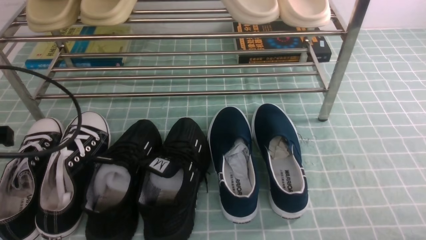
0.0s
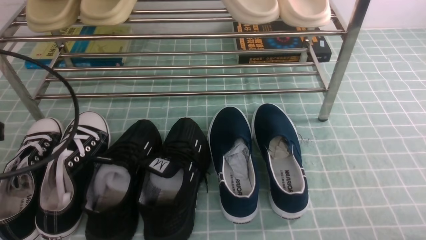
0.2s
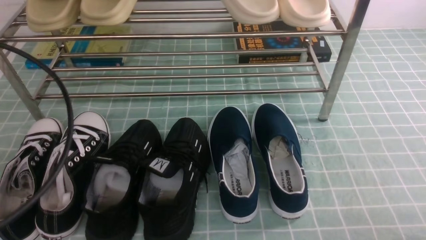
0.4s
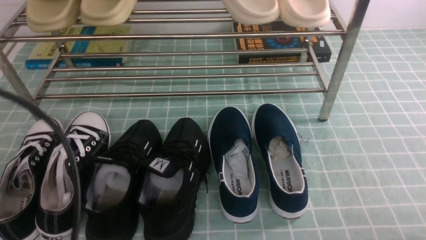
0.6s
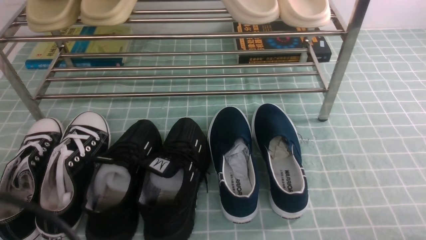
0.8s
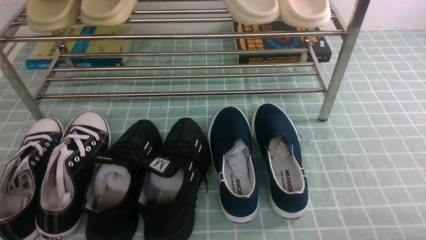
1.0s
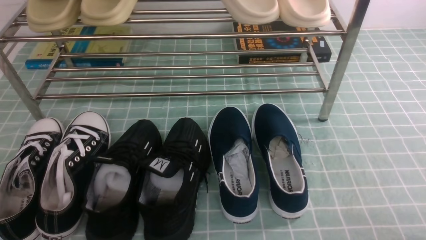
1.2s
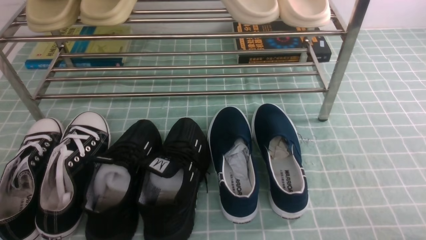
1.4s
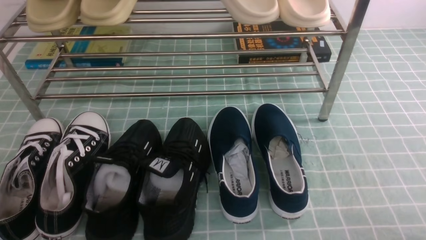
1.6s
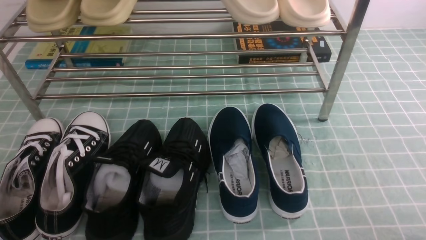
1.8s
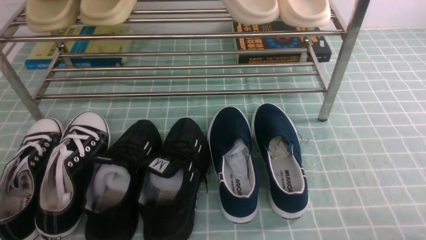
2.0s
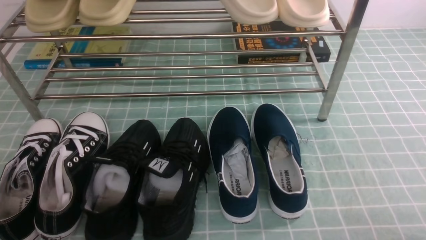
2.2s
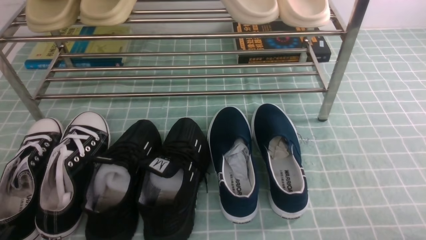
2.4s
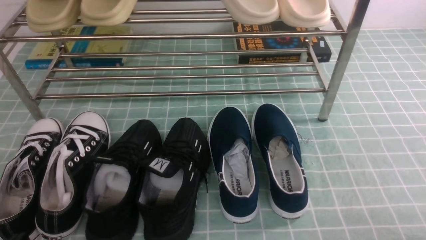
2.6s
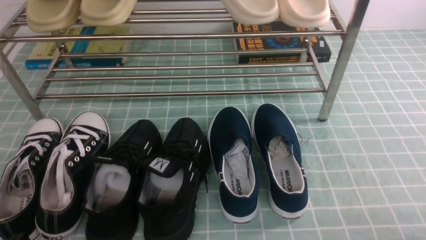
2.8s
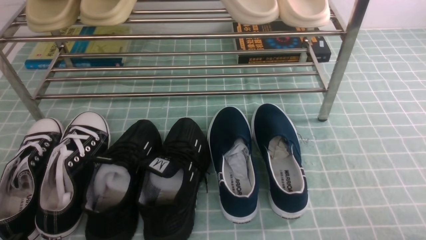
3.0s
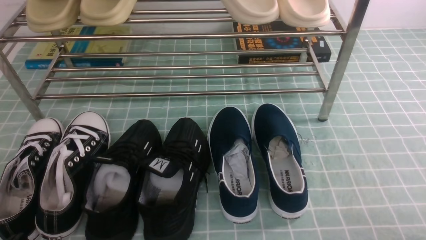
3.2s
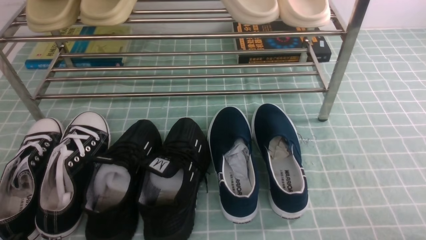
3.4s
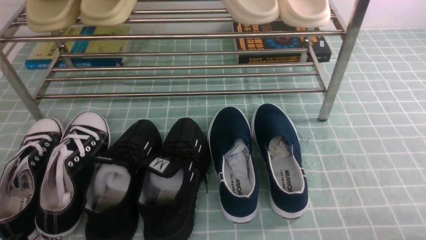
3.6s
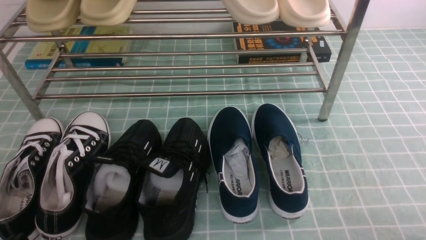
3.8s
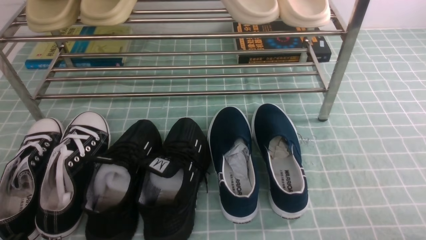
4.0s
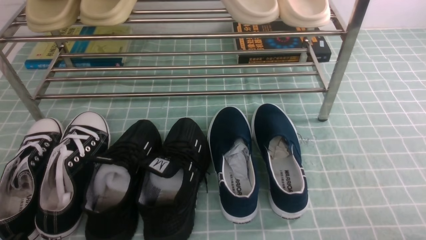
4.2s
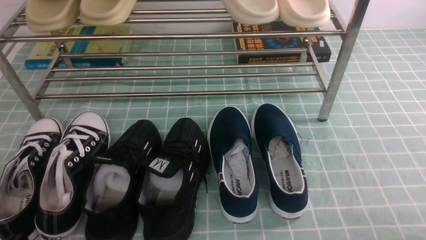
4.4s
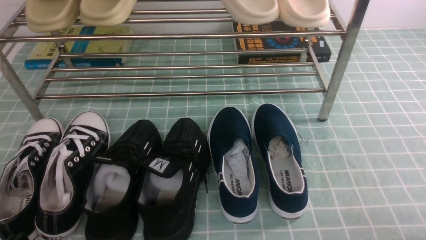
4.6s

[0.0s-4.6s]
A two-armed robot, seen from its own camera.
0.0s to 1.6s: The left gripper moves backward, some 20 cm.
3.0s to 4.6s: Both grippers stay put.
